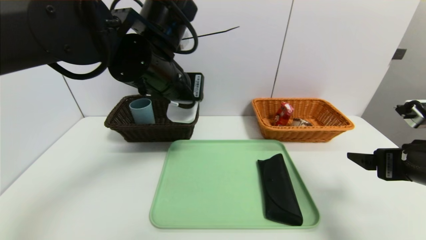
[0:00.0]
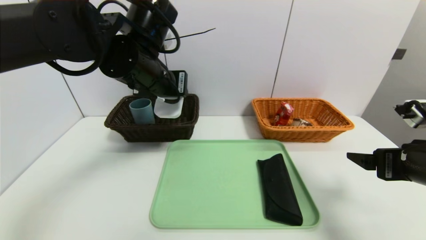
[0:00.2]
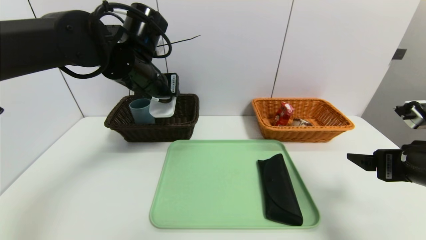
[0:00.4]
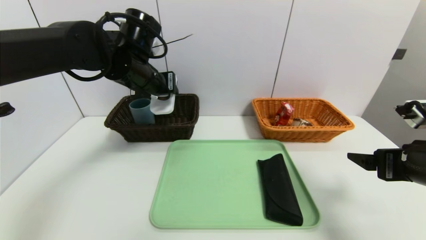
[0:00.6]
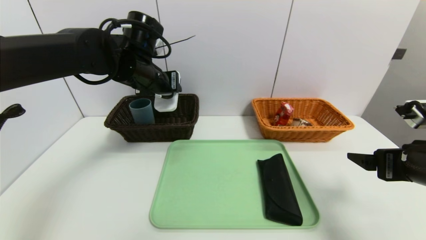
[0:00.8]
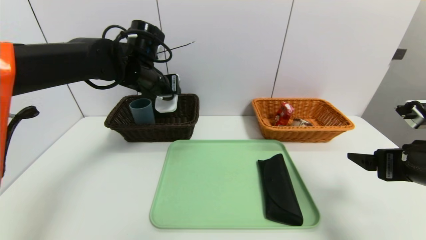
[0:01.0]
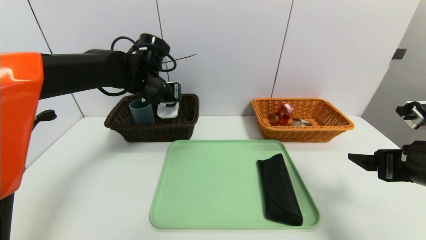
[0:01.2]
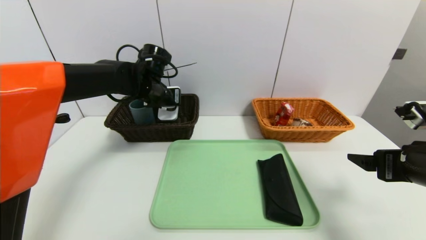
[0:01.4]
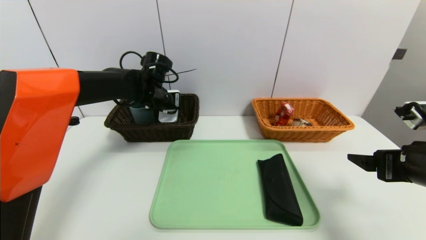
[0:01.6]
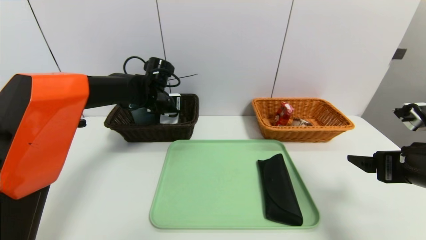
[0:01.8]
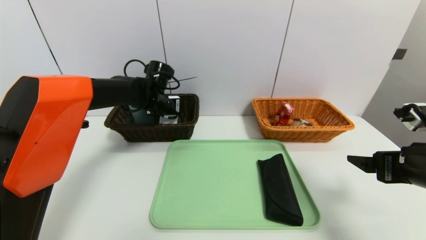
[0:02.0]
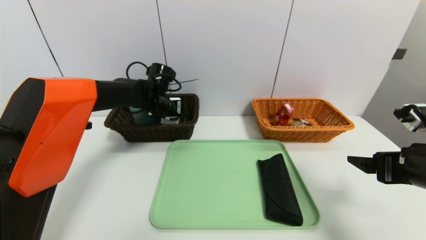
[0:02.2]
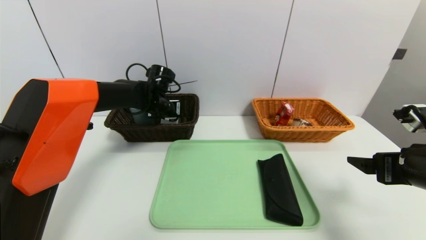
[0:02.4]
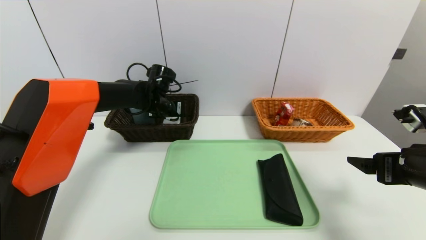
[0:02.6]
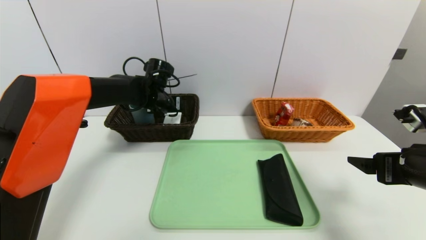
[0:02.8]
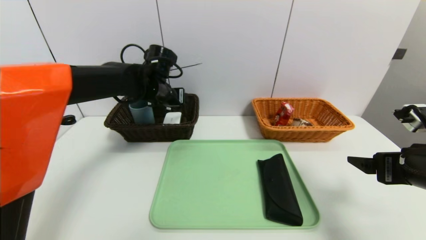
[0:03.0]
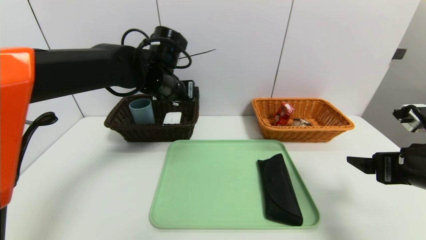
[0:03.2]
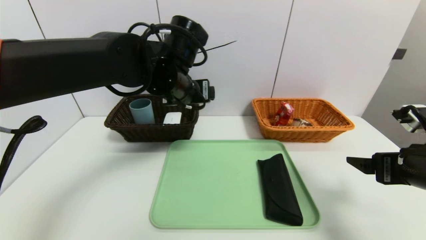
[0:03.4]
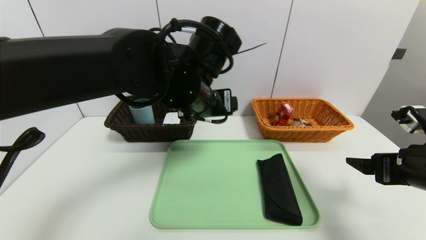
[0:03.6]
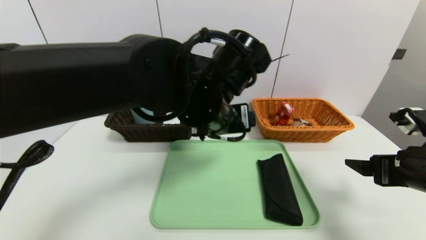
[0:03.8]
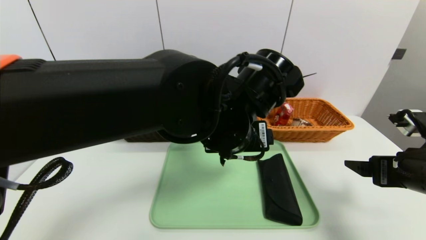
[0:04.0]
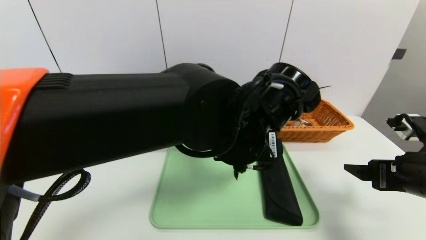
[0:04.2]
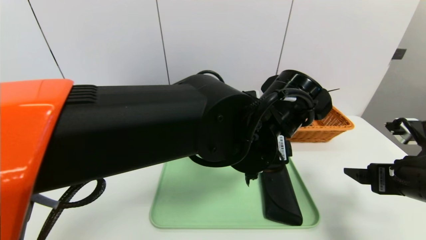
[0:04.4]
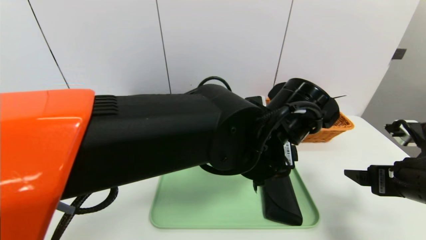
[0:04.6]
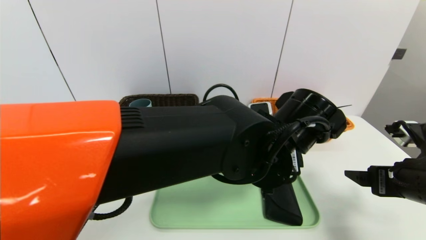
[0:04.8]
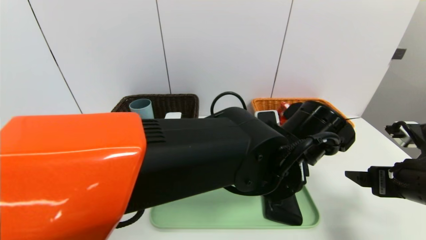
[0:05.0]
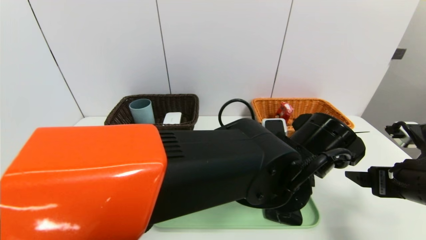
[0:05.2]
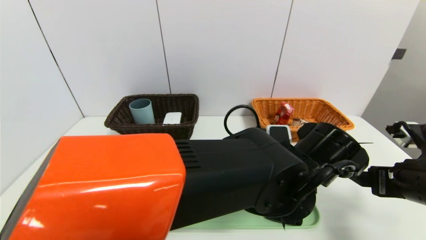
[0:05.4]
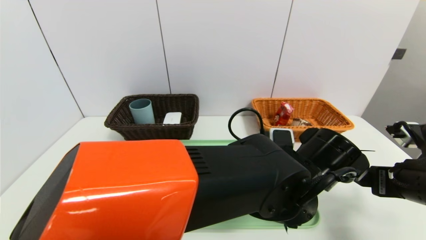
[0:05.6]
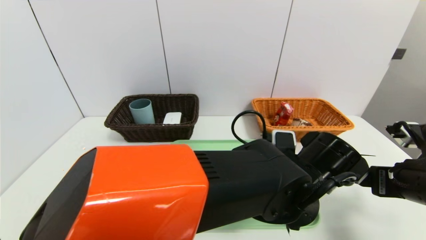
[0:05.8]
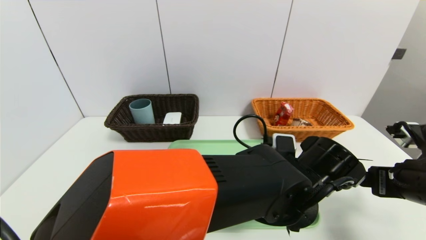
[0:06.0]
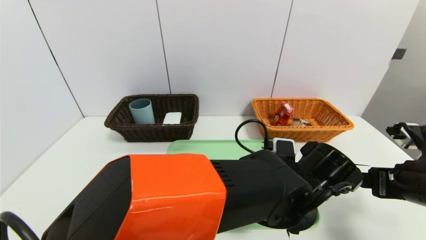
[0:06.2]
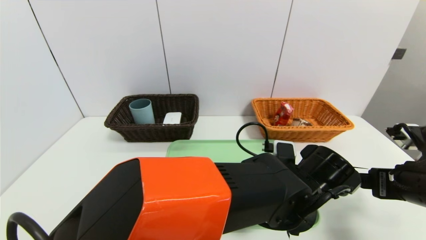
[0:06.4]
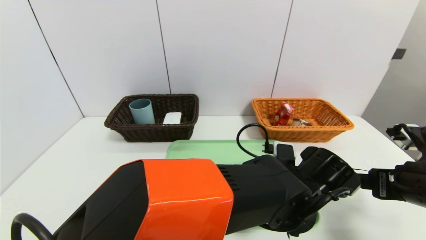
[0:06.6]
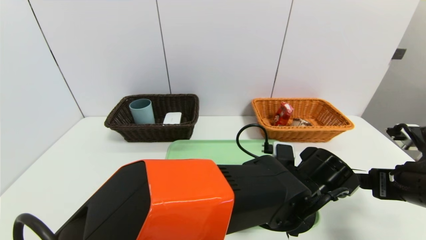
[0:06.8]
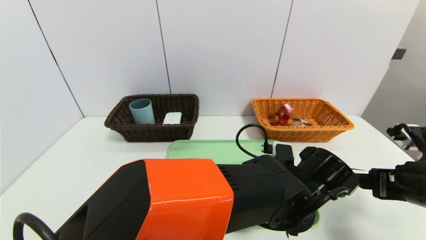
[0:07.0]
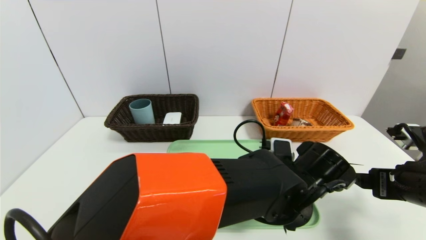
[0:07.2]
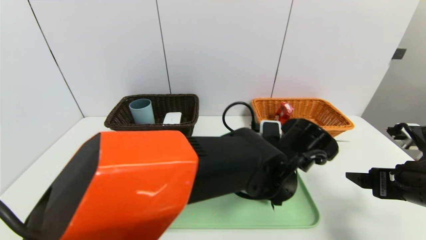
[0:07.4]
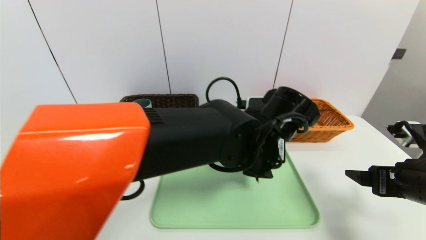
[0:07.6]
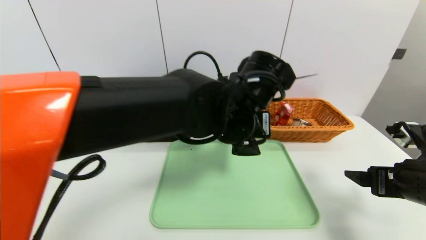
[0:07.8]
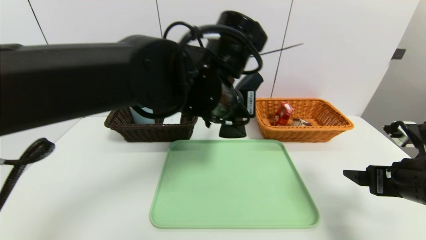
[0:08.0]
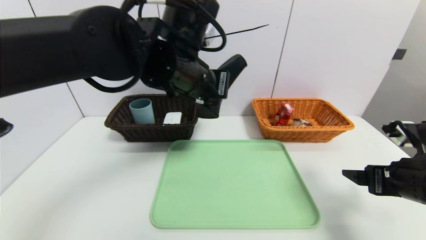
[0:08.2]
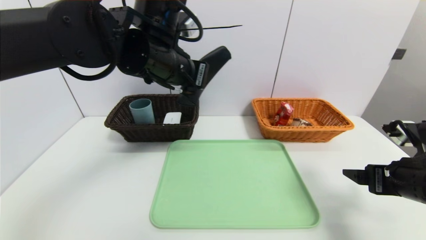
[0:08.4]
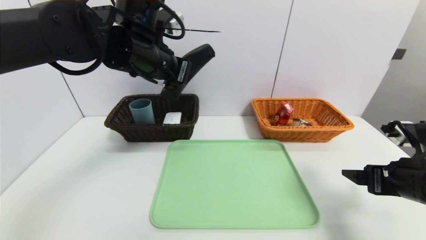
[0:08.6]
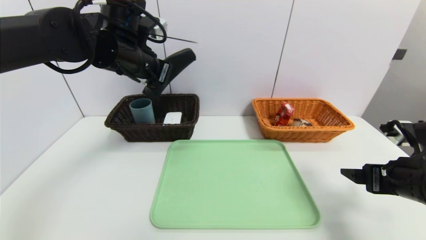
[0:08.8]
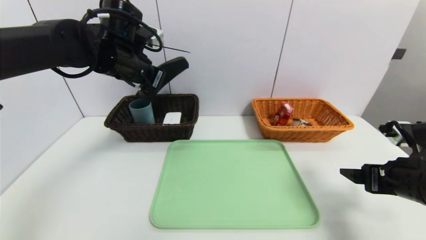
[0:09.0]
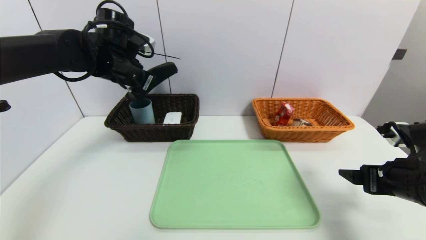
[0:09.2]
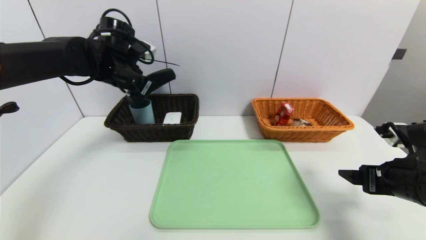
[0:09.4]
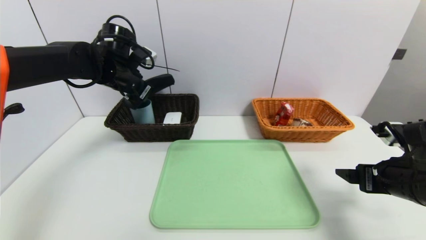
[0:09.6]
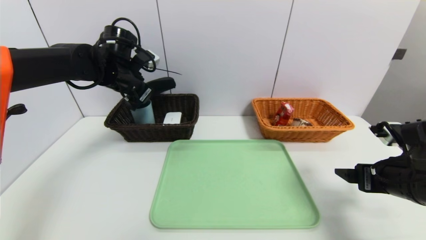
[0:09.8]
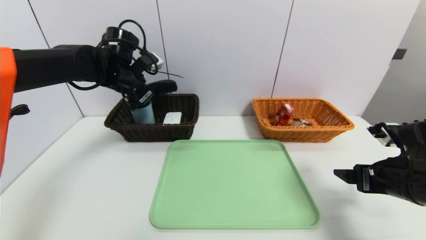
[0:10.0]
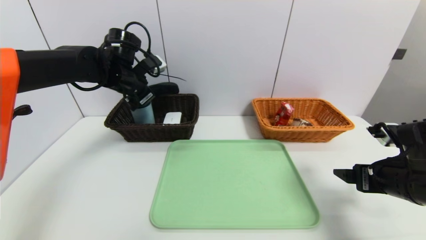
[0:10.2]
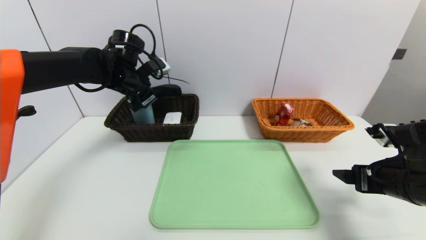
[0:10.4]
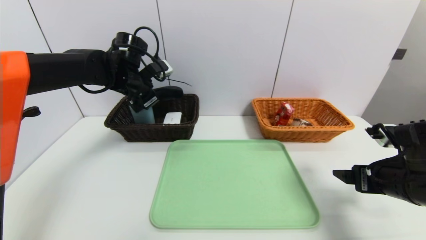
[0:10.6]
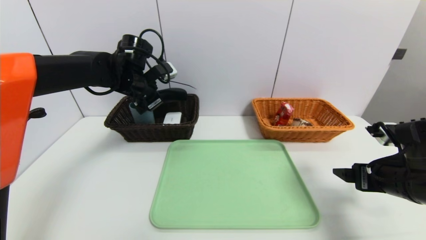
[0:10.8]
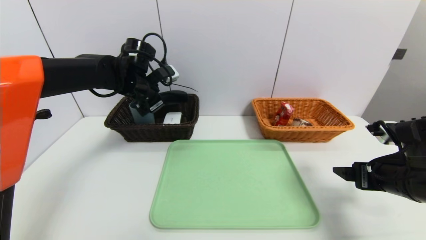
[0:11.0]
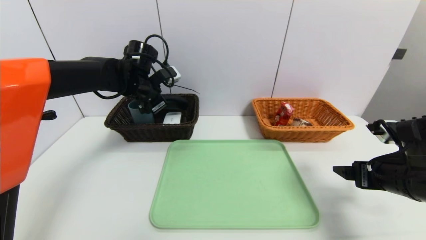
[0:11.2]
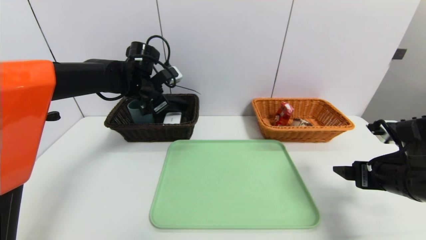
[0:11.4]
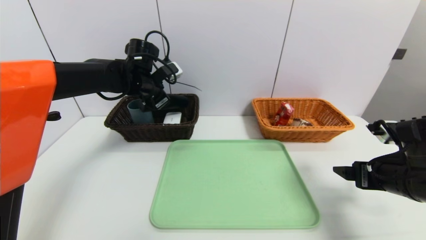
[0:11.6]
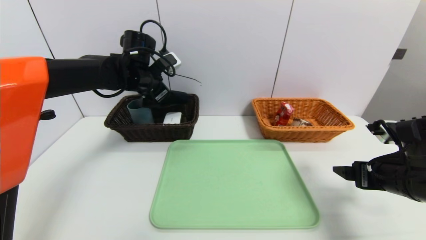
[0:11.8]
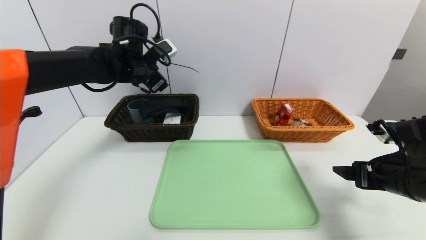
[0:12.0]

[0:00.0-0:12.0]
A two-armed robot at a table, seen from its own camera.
Task of the whole recording: place the food in the right basket with the right gripper, and place the non food items in the left basket with the left gripper.
Step, 0:00.0 to 0:03.4: Grasp the white eraser and put it in the left basket.
0:00.0 to 0:01.6: The left gripper goes approximately 20 cm forward and downward.
0:01.6 to 0:03.0: The left gripper opens its fingers.
0:03.0 to 0:04.4: The left gripper shifts about 25 cm backward and to the right.
0:04.4 to 0:06.0: The left gripper moves downward and to the right, roughly 10 cm.
0:06.0 to 0:07.6: The left gripper moves upward and to the left, about 10 cm, and closes.
0:07.6 to 0:09.0: The left gripper shifts roughly 25 cm to the left and forward.
0:09.0 to 0:10.4: The left gripper ends up some 5 cm from where it was.
0:10.4 to 0:12.0: The left gripper opens its fingers.

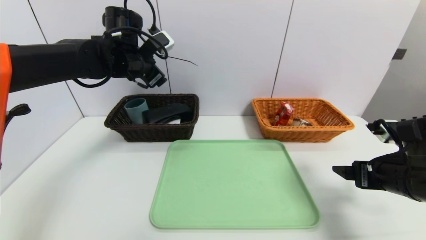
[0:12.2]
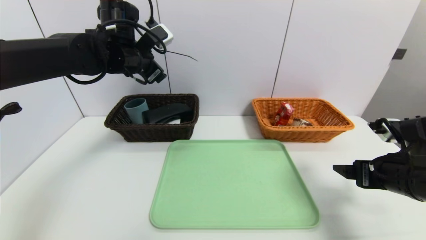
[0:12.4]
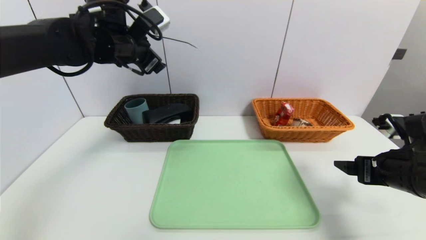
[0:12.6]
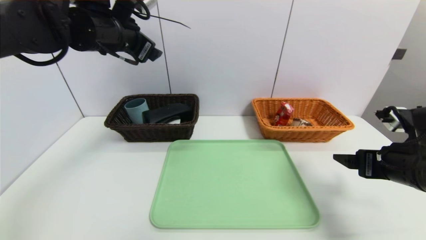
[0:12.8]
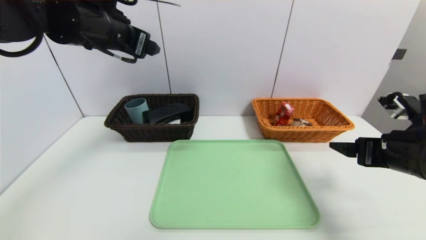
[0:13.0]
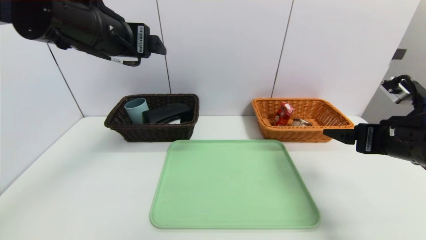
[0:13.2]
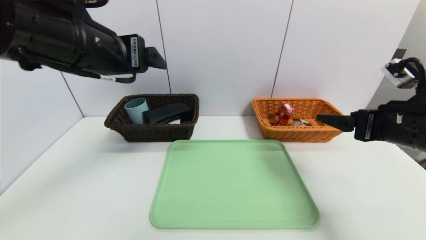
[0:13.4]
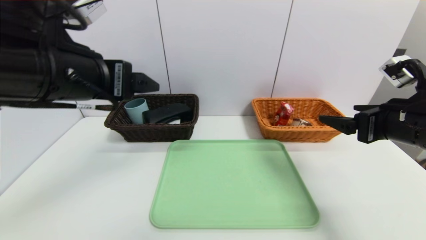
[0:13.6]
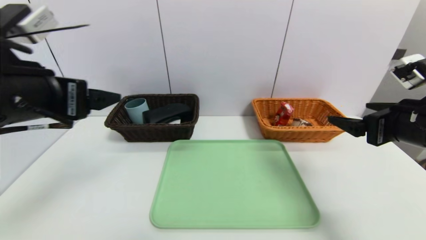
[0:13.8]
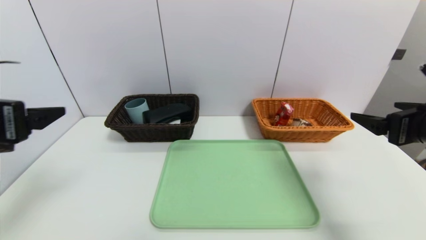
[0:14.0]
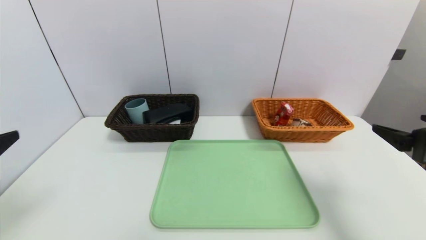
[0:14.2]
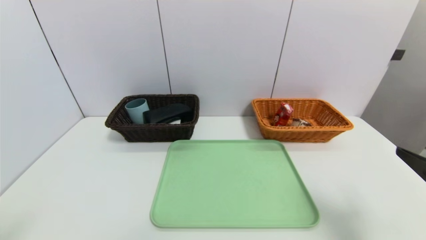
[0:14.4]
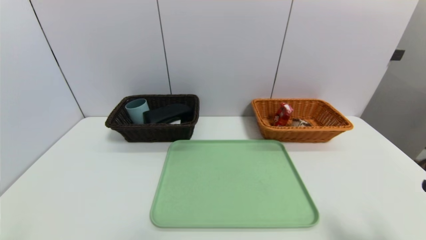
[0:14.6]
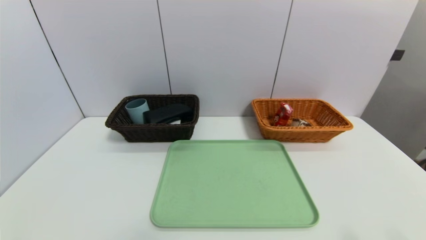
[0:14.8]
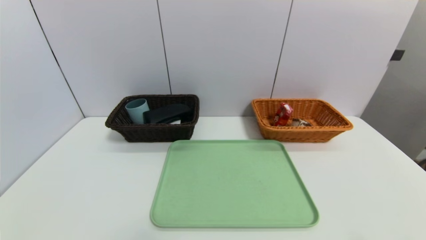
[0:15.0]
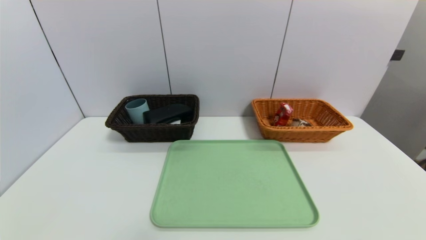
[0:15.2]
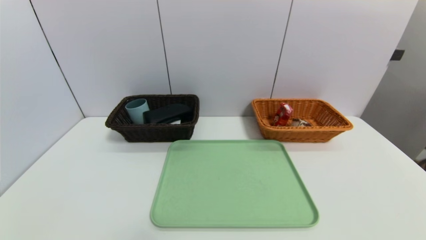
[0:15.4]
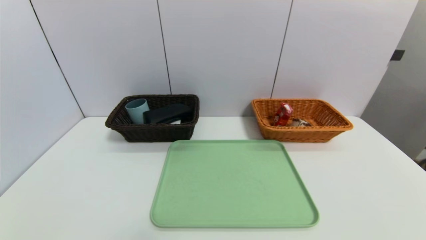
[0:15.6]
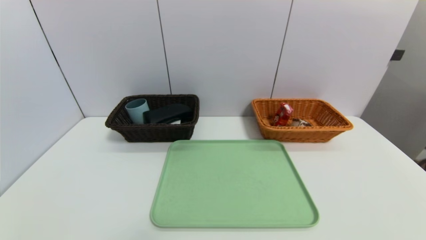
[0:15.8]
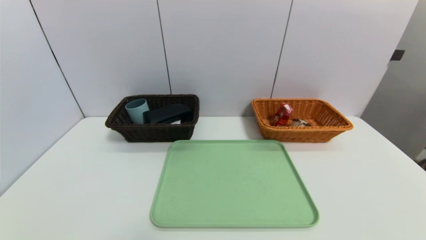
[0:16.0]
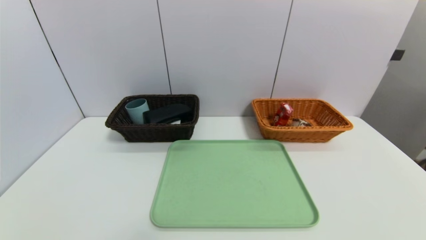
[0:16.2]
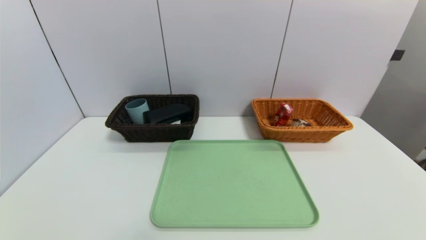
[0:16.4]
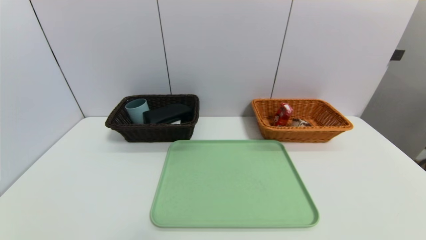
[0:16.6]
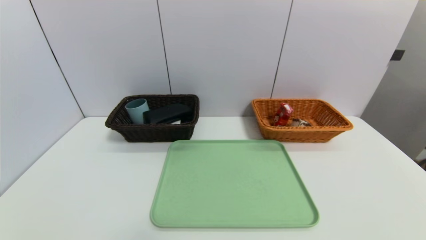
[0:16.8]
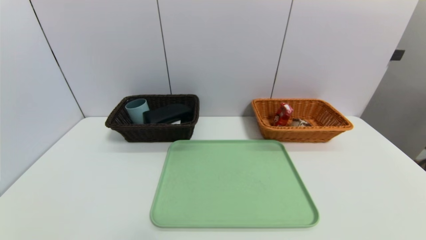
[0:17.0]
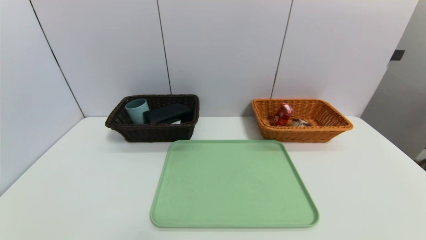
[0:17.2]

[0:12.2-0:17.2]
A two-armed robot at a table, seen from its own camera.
Task of the whole recording: place the food in the right basket with the right gripper, and place the non food items in the left basket with the left gripper.
0:12.2 to 0:13.8: The right gripper goes some 10 cm upward. The left gripper travels backward by some 25 cm.
0:13.8 to 0:15.6: Both grippers move backward and downward, some 30 cm.
